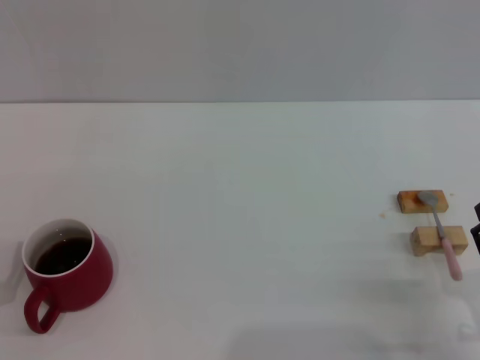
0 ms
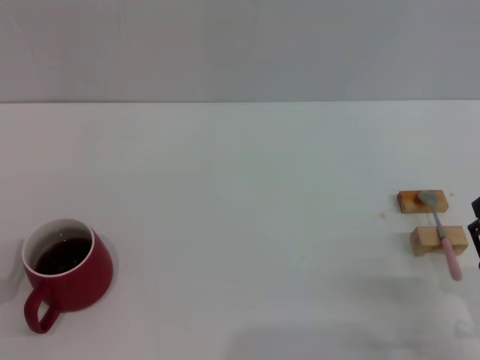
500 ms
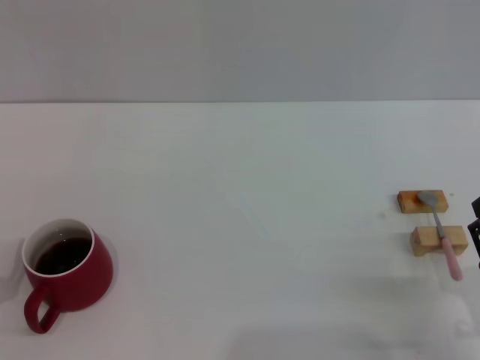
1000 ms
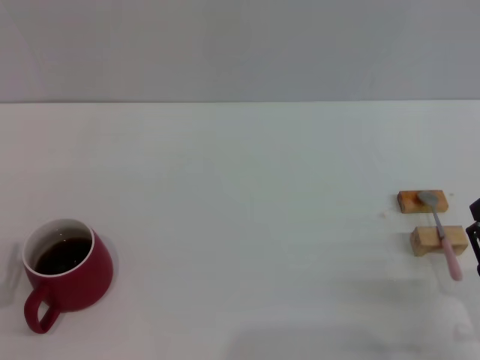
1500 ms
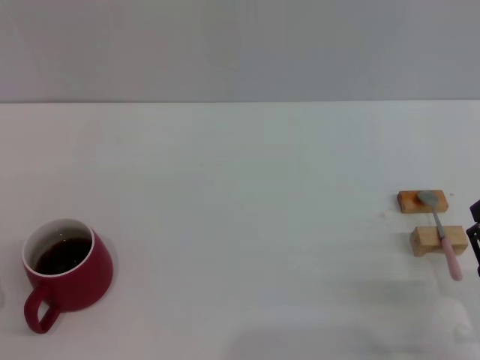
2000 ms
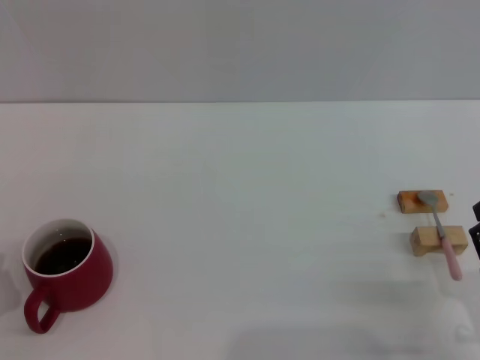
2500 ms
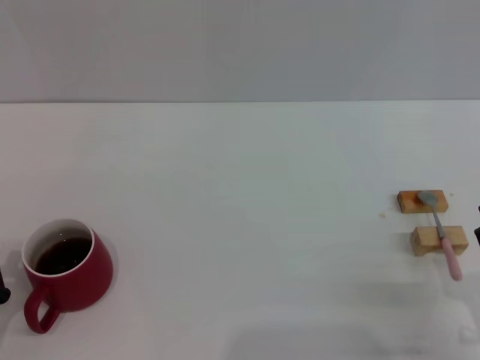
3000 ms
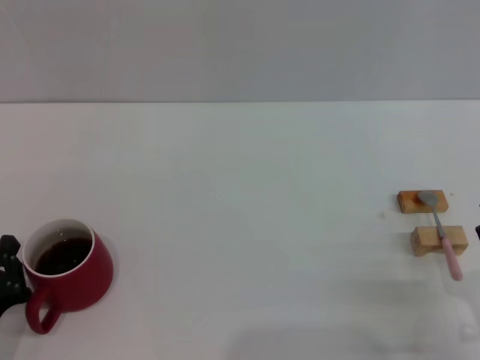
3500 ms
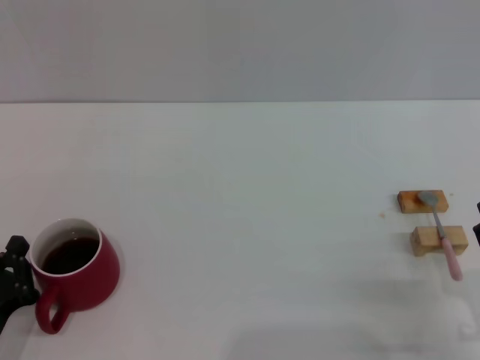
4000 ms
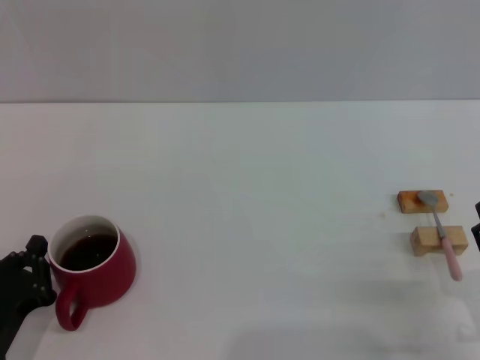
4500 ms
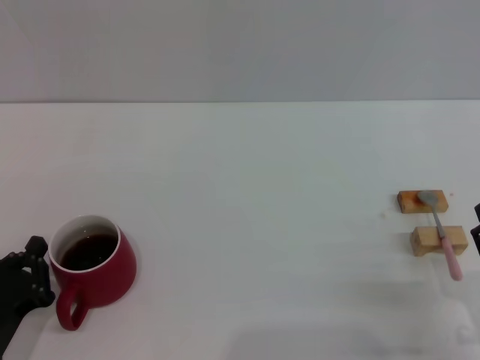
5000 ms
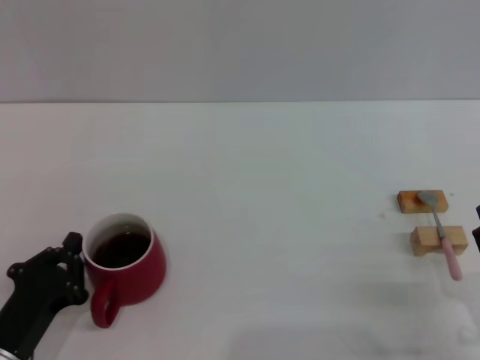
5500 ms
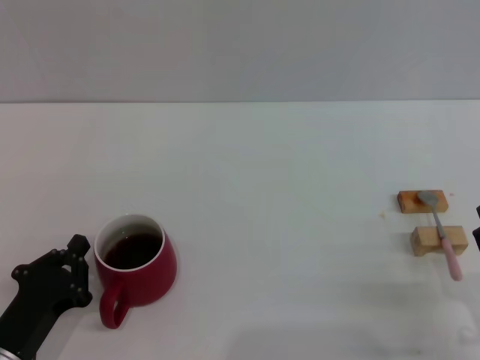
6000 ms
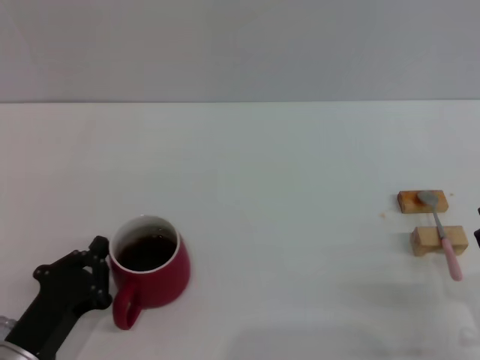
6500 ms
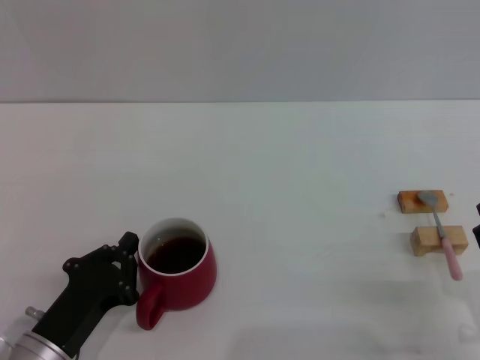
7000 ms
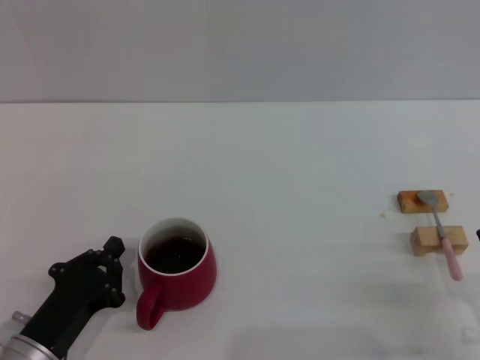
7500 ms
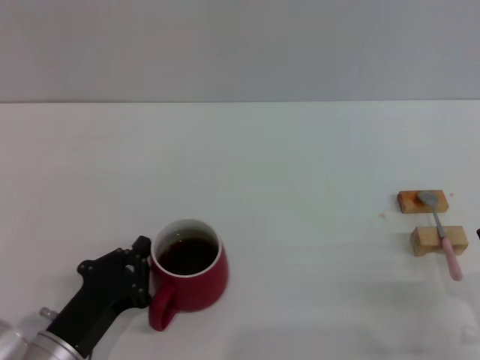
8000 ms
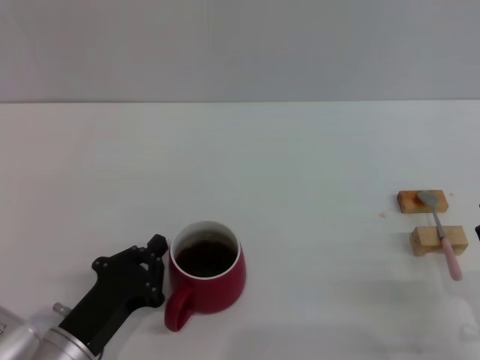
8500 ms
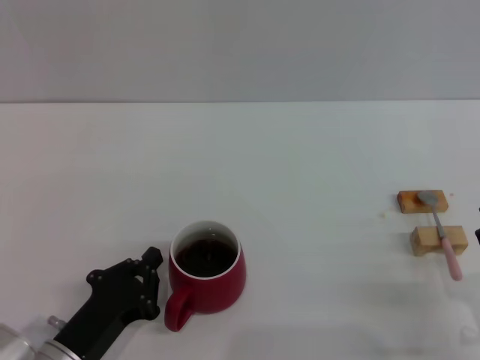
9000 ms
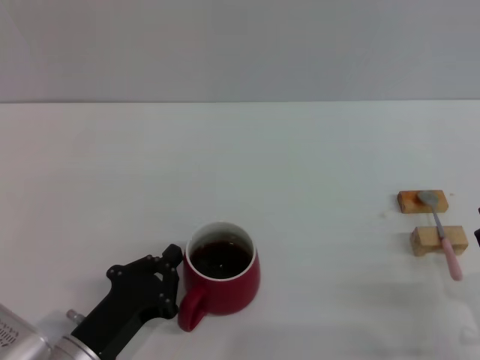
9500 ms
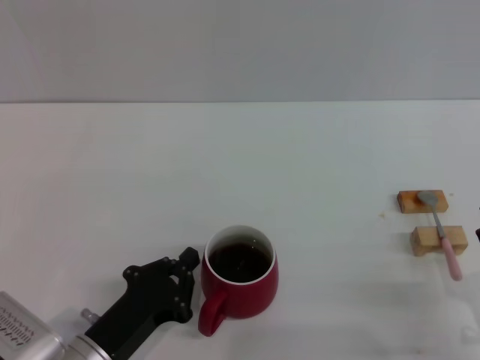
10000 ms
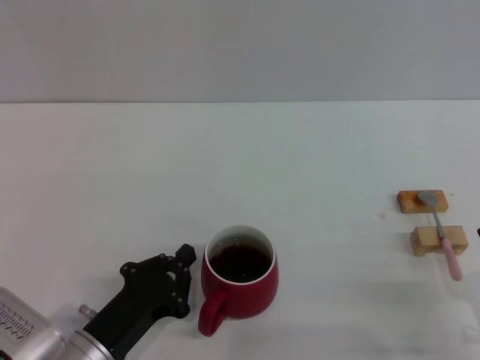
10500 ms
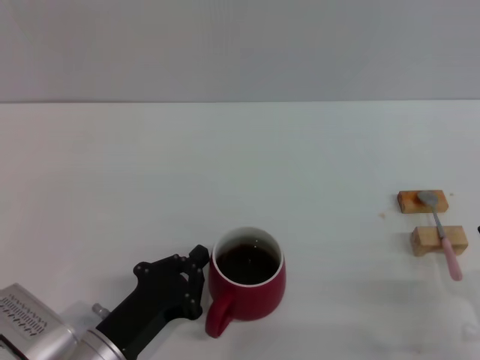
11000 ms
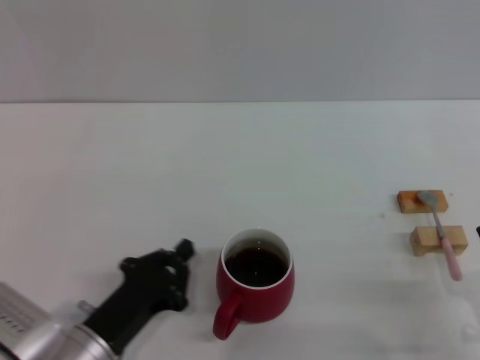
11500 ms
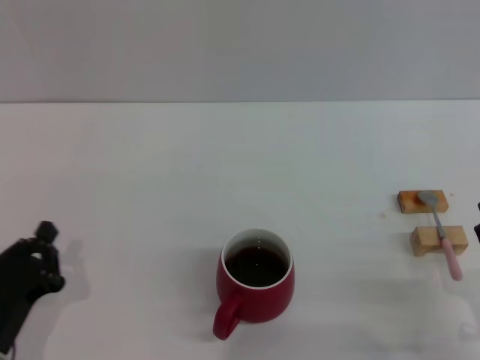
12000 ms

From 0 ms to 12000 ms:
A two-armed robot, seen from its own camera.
Task of the whole recording: Move the red cup to the center, lift the pink spoon, stir it three times in the cup, and put the spoon into the cup.
Step, from 0 ms to 11500 ms: Move the cup with coffee to the center of view with the left gripper.
From 2000 ms to 4000 ms: The left gripper closes its fingers.
From 4000 ms to 6000 ms: The grippers make only small movements.
From 6000 ms to 8000 ms: The grippers stay close to where they were, moving slightly.
From 8000 ms to 10000 ms: The grippers stay close to where they were, moving slightly.
From 10000 ms to 12000 ms: The left gripper travels to the left by about 10 cm.

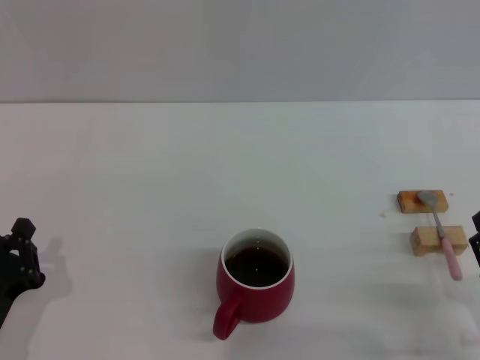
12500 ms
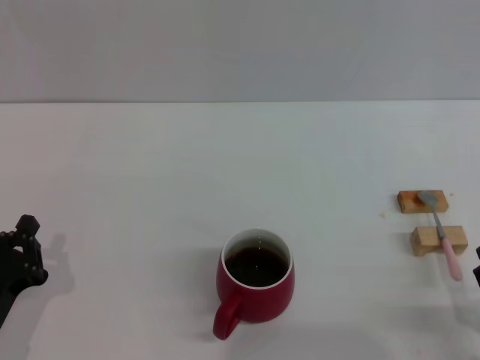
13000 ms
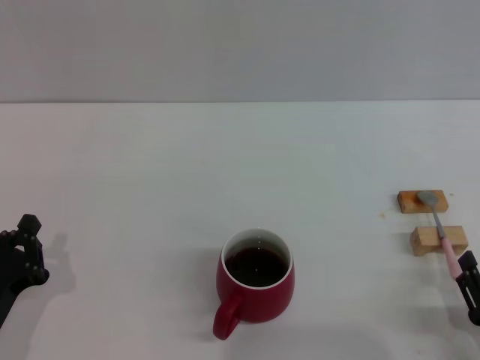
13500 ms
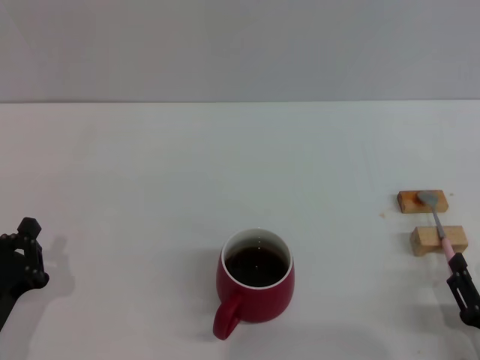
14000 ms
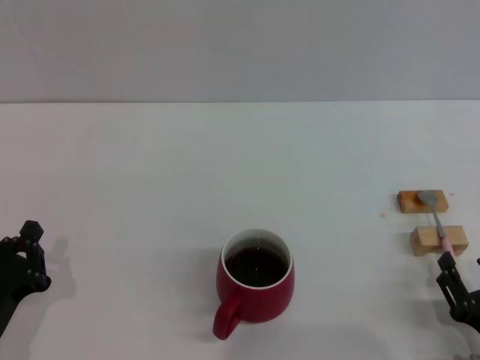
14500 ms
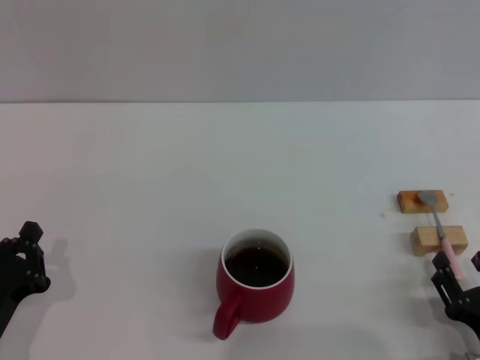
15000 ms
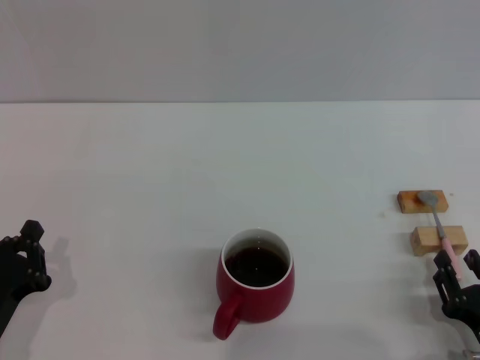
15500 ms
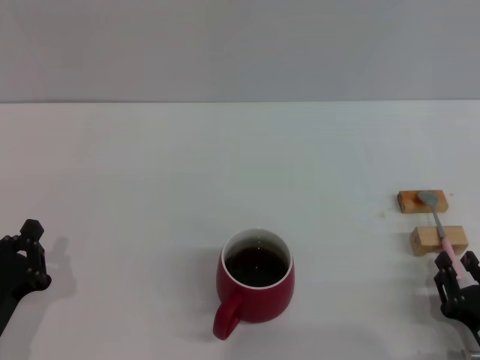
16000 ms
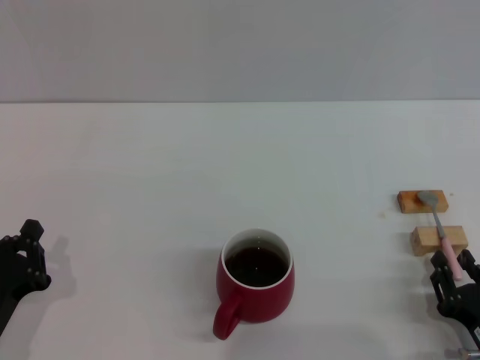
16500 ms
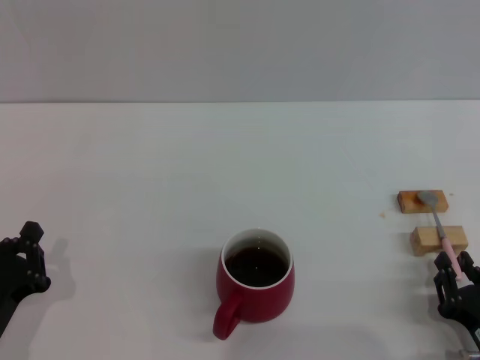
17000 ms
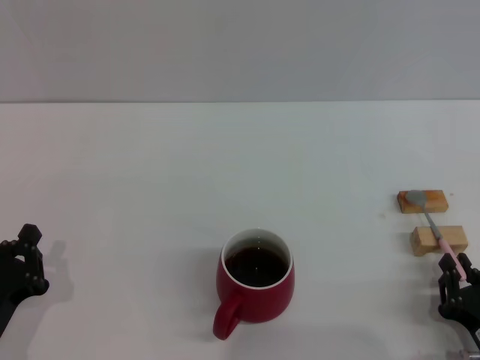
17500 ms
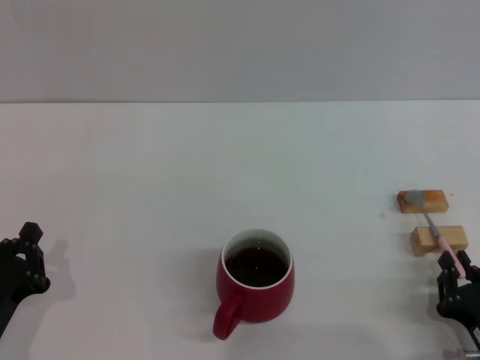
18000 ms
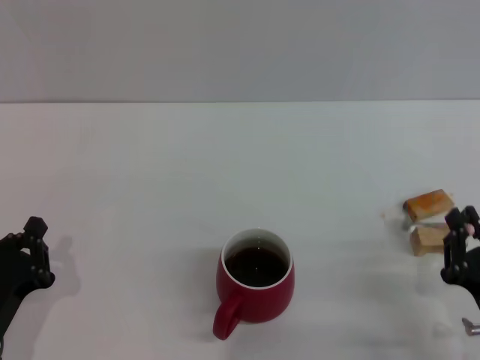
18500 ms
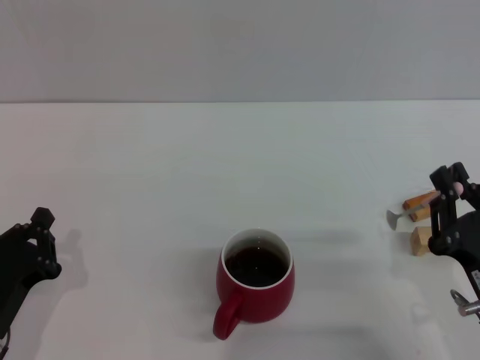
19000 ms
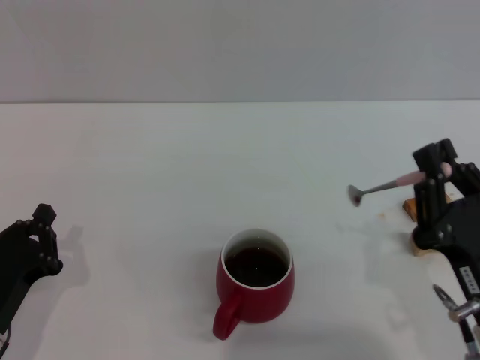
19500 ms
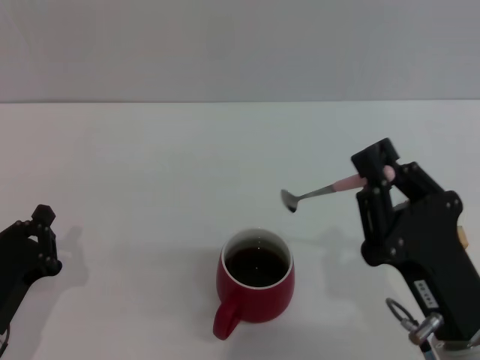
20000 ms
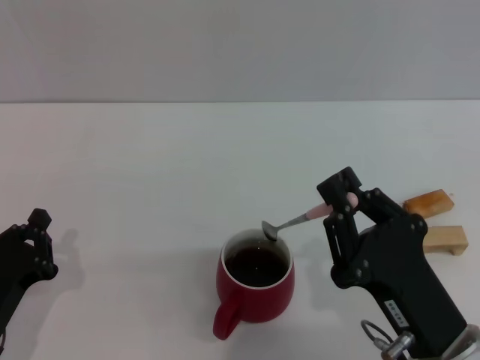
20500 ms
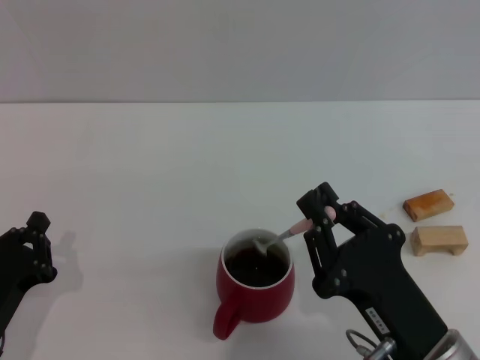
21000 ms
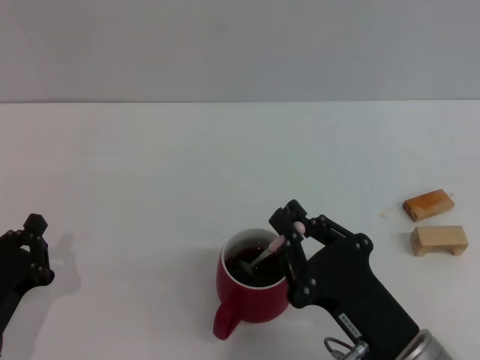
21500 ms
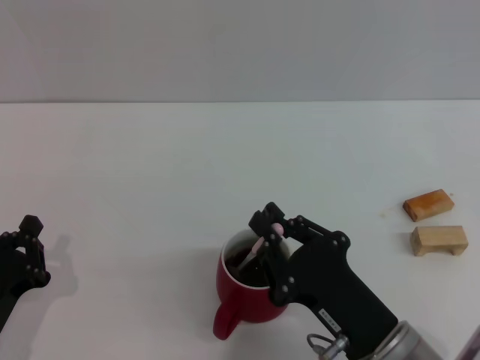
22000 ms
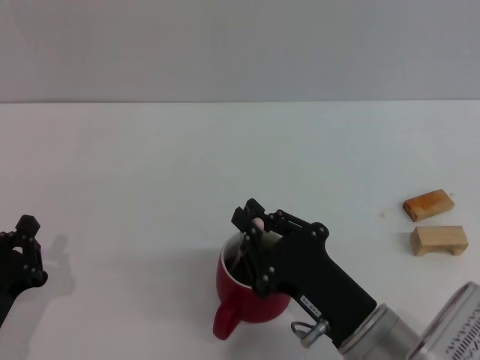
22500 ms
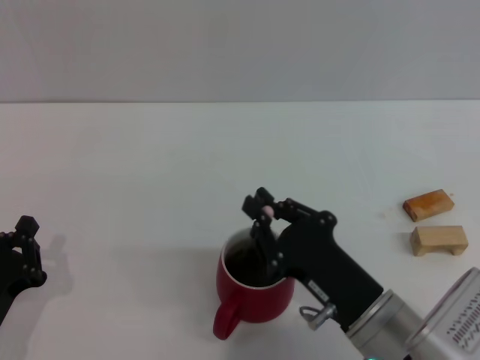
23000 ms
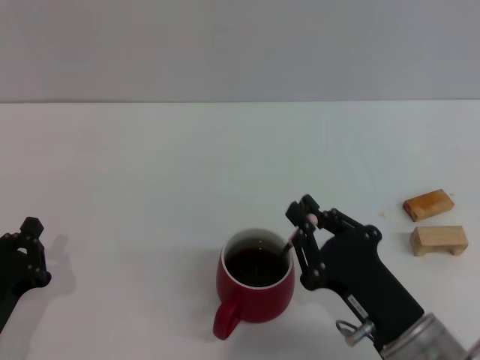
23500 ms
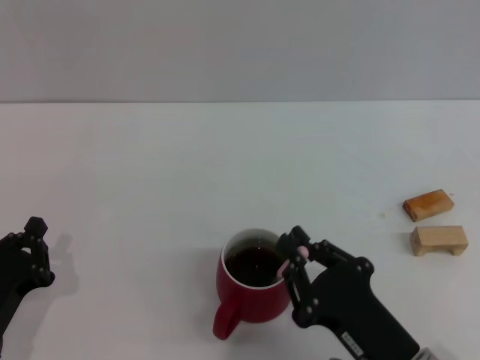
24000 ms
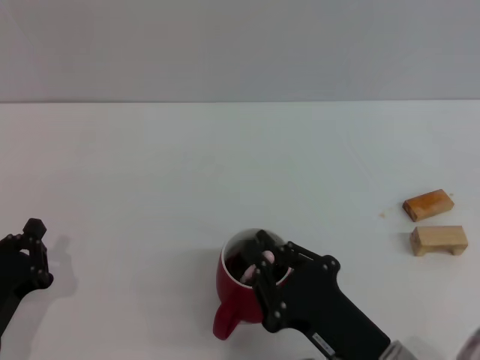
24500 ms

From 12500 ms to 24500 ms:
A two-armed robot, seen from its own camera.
Task of the whole recording: Move the red cup to the center, lift the pink spoon, stir it three times in the cup, and put the spoon into the cup.
Step, from 12500 ms to 19000 ms: Pick up the spoon with the right gripper.
From 12500 ms to 14500 ms: The grippers move only a little.
From 14500 ms to 16500 ms: Both grippers stay put.
From 16500 ms to 18500 ms: The right gripper closes up.
From 18500 ms to 20500 ms: The right gripper heads to the left and upward, covering roughly 10 cm.
From 20500 ms to 22500 ms: The right gripper moves about 5 cm.
From 22500 ms to 24500 ms: The grippers move only a little.

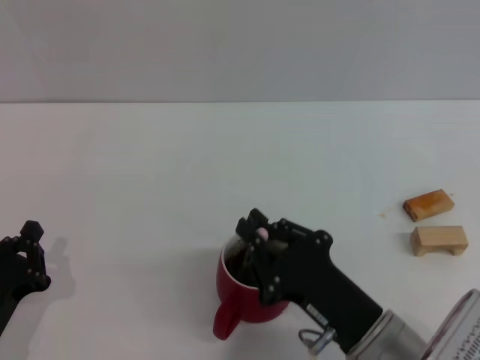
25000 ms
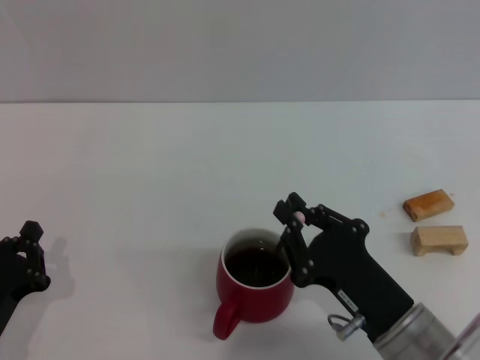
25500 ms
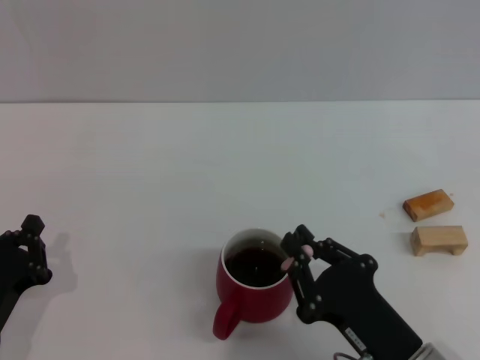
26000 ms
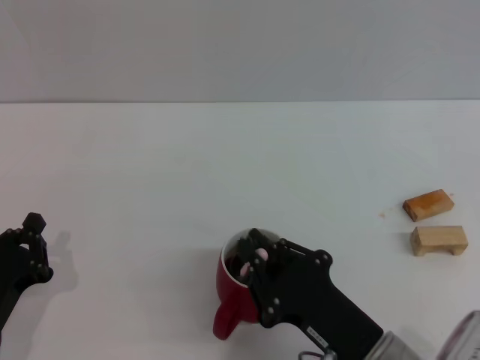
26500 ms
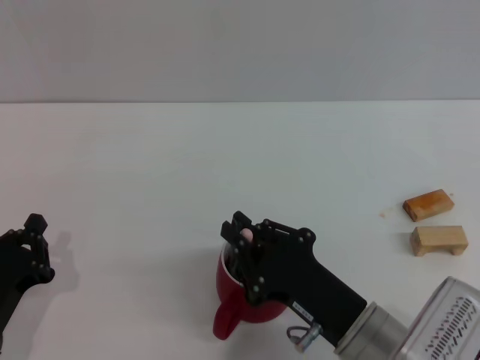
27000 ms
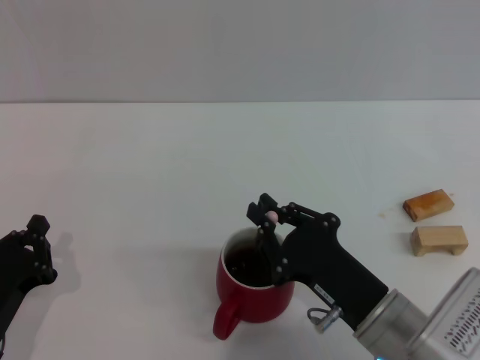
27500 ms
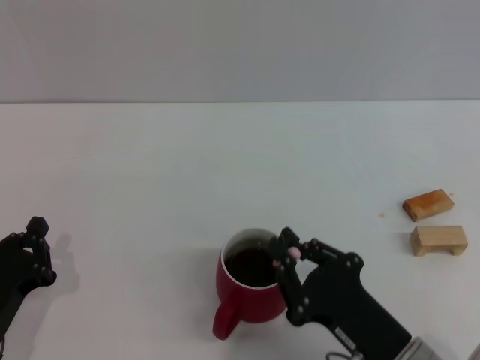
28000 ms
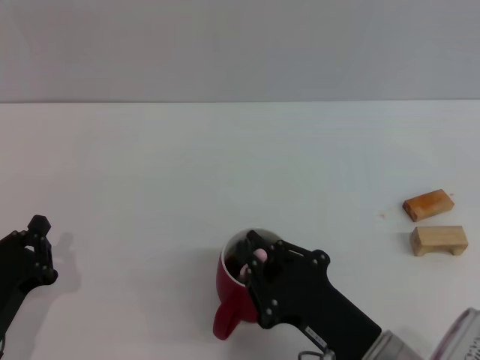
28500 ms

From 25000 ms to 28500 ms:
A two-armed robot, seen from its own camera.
Task of the whole recording: Move the red cup to the center, lift the pink spoon, stir it three times in the cup, and put the spoon into the cup.
From 25000 ms to 28500 ms: The grippers make only small movements.
